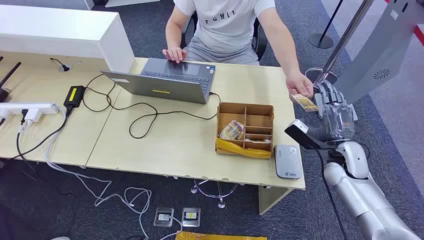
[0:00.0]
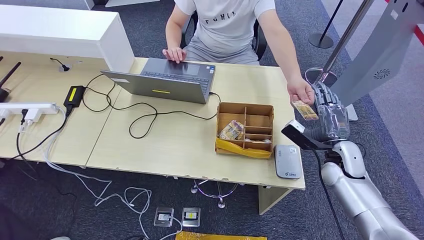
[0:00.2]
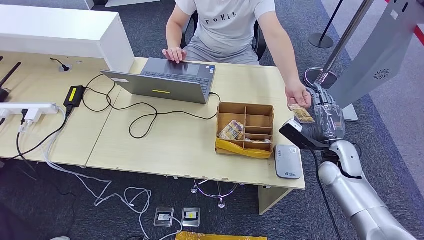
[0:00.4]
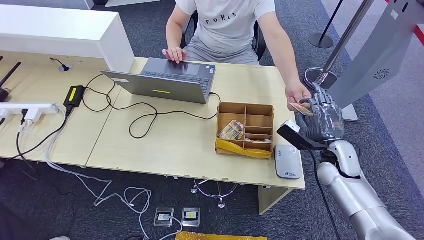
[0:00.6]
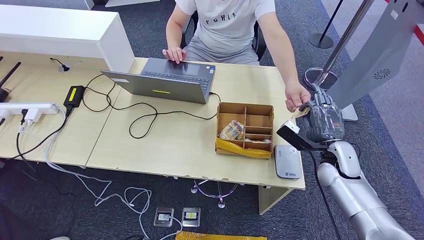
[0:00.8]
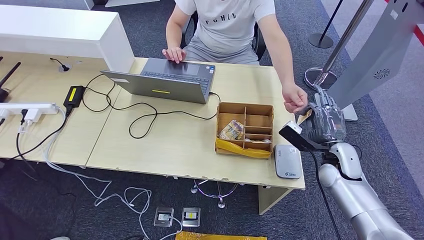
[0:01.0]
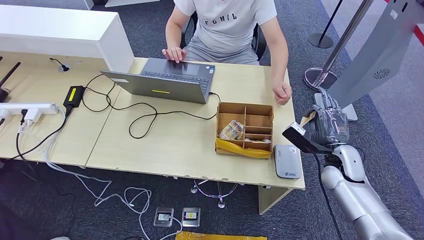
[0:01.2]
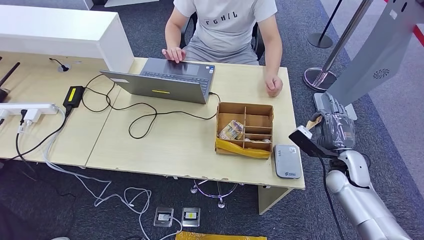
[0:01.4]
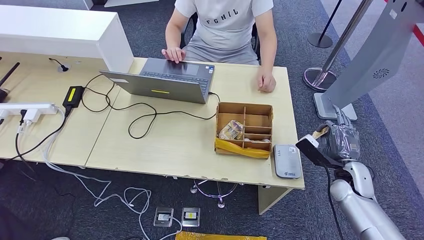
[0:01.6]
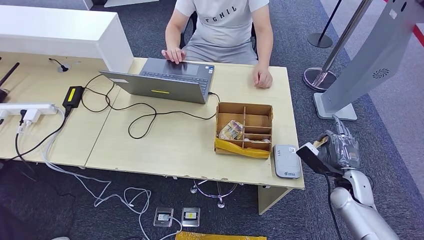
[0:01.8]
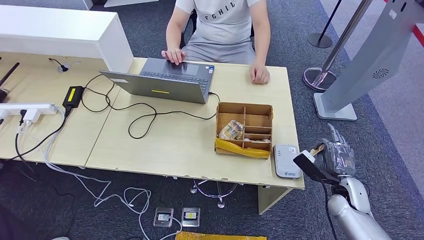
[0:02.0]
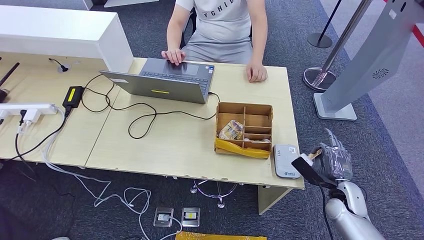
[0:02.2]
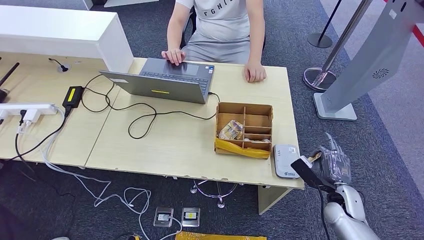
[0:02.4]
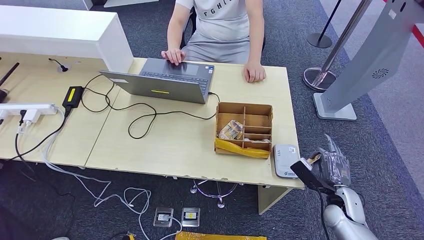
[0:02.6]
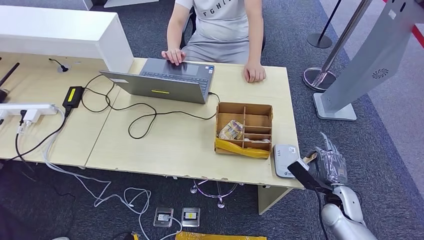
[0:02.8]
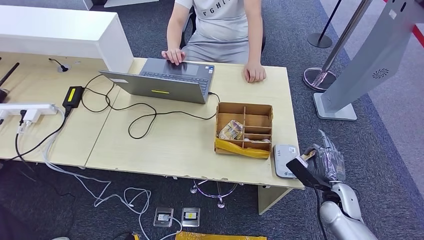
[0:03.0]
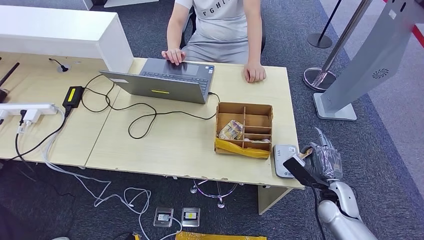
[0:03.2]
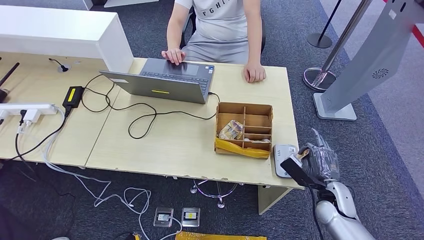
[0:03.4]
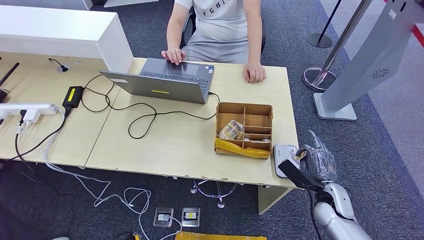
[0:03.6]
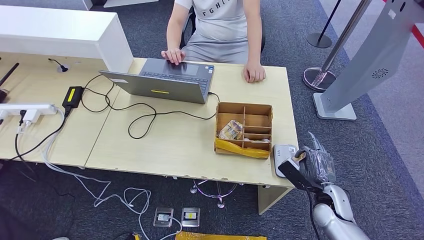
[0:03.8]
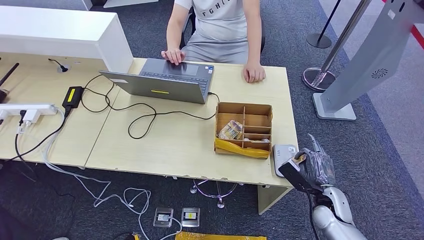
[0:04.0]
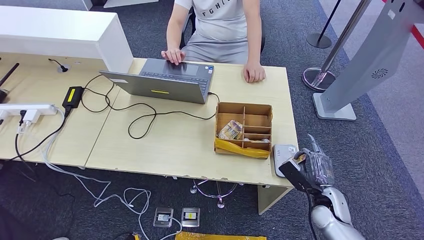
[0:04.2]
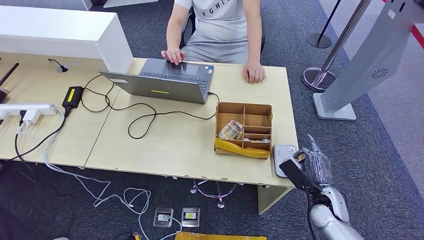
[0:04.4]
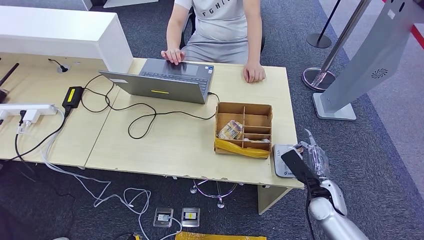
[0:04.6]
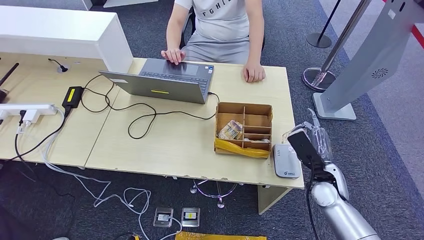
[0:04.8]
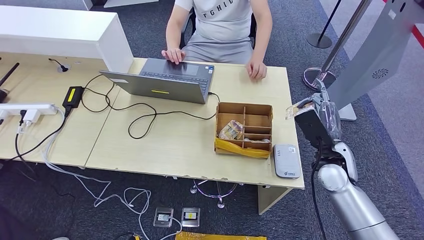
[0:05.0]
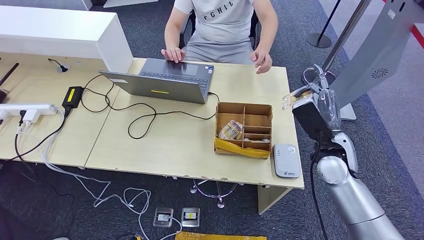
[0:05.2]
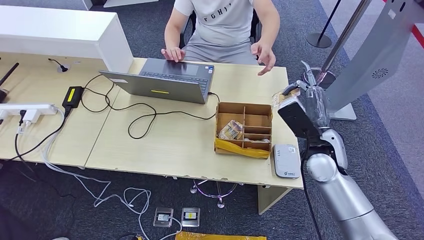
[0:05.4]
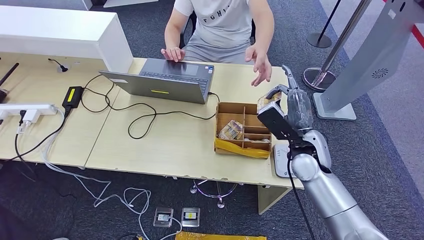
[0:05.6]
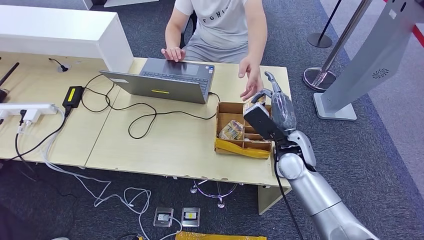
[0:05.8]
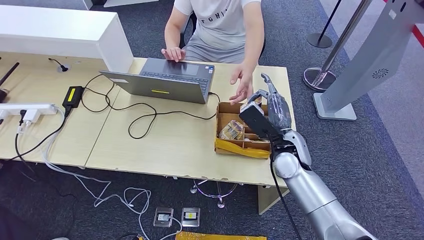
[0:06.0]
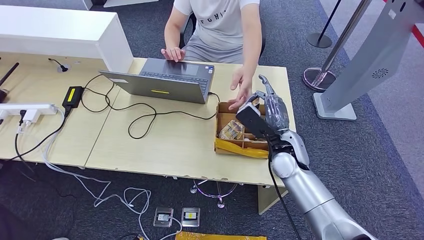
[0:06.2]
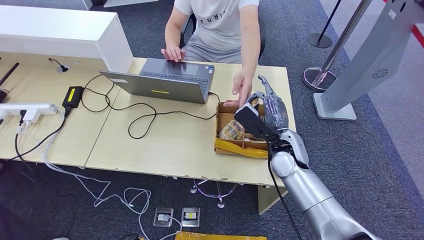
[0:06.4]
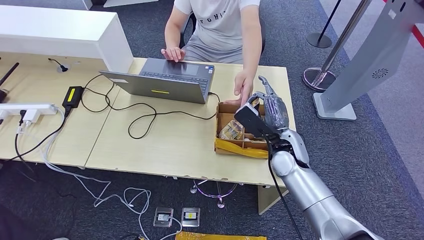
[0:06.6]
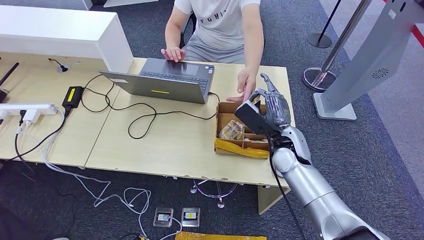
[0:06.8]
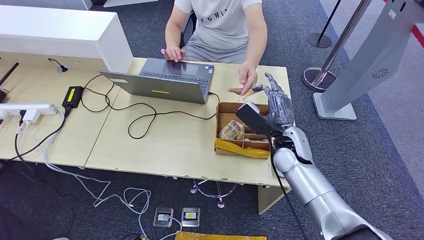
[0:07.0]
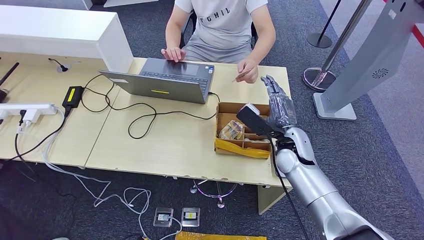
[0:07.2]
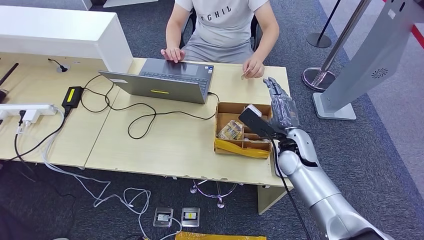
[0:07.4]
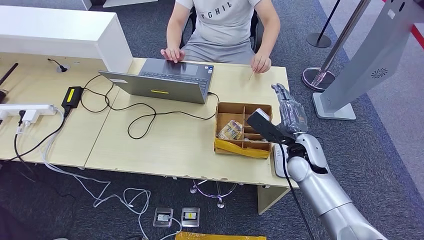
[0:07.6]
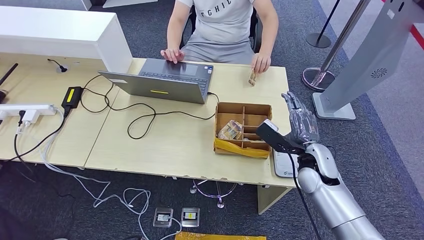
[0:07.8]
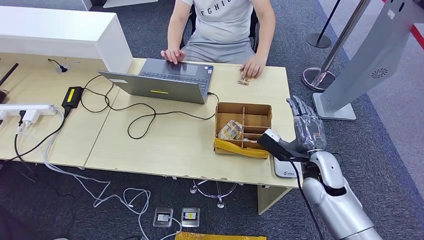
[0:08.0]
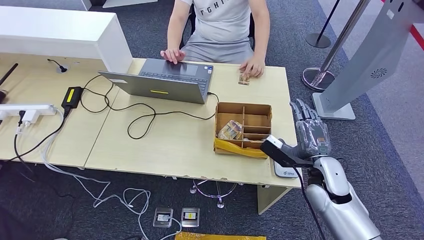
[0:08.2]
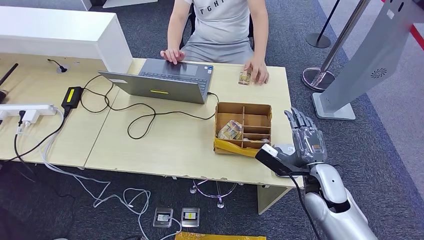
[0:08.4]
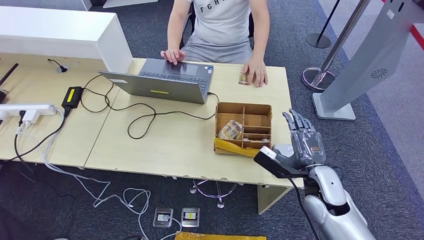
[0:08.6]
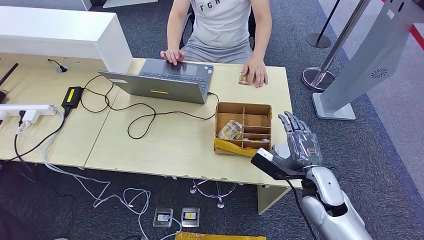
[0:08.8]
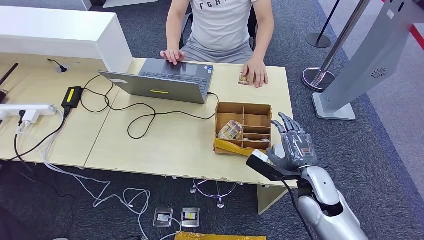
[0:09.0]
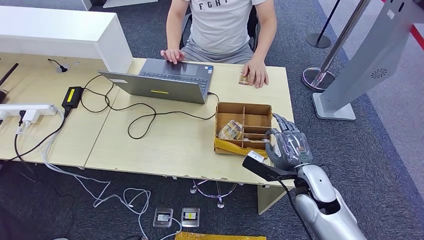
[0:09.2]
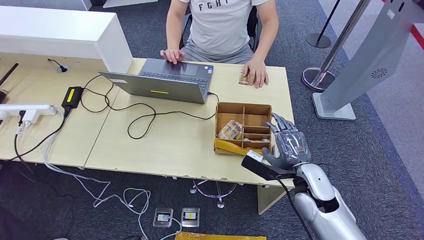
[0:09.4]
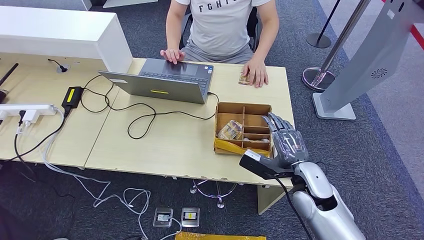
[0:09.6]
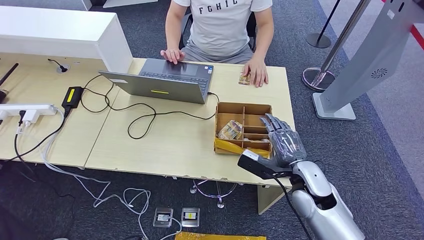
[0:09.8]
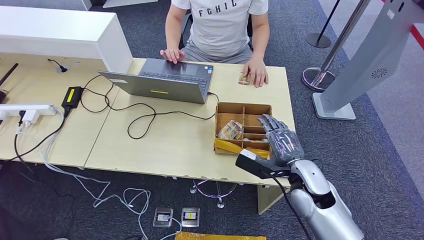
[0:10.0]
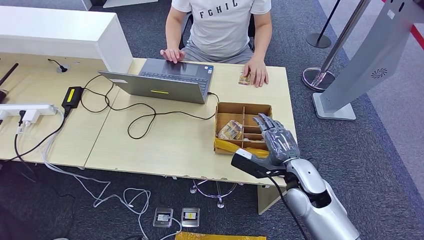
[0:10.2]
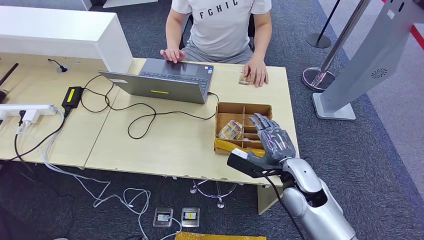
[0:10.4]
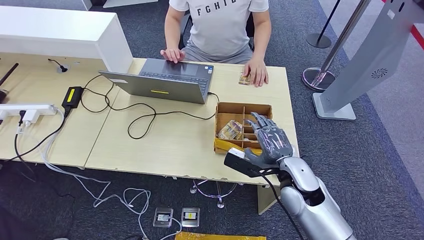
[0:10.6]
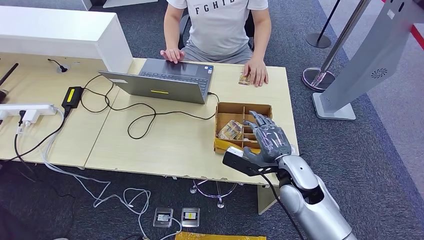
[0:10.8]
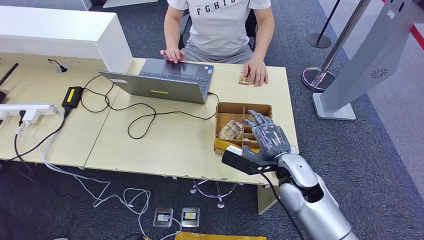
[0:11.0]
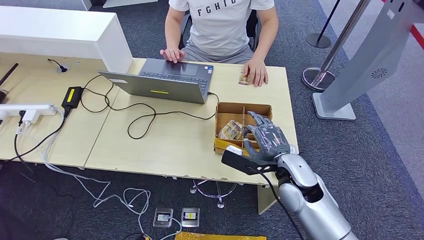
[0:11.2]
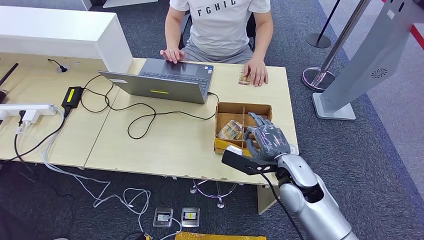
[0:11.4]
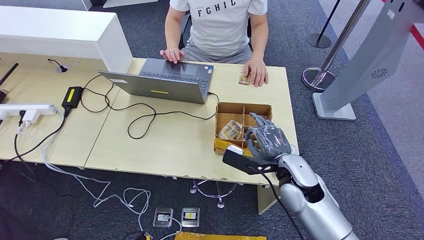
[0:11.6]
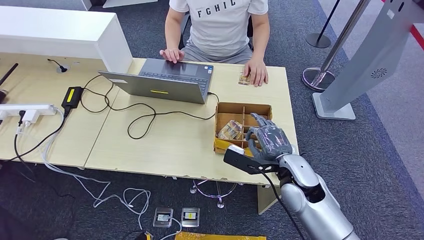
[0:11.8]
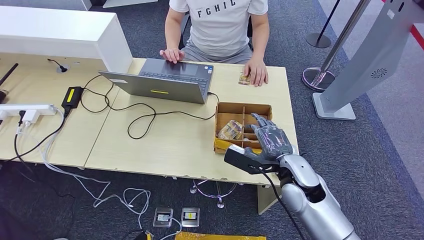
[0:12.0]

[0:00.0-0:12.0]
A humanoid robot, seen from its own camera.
Step, 0.0 to 0.8 s: Take the ID card from the person's hand.
Step, 1.0 to 4.0 s: Place the ID card on the card reader.
Step, 4.2 to 6.6 s: Hand the ID card to the person.
1.6 to 3.0 s: The right hand shifts roughly 5 cm downward.
3.0 to 4.4 s: The hands stay close to where they were, moving slightly.
4.4 to 6.0 s: The right hand shifts some 20 cm to the left, upward and forward.
6.0 to 7.6 s: There are only small adjustments of the hands.
7.6 to 9.0 s: The right hand heads backward, covering roughly 10 cm.
9.0 to 10.4 s: The right hand shifts by roughly 5 cm.
10.4 to 12.0 s: The hands stay close to where they were, moving slightly.

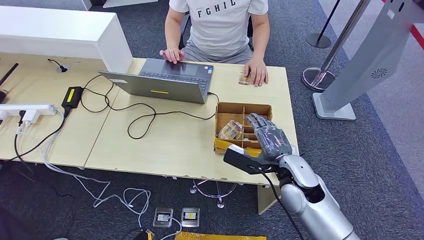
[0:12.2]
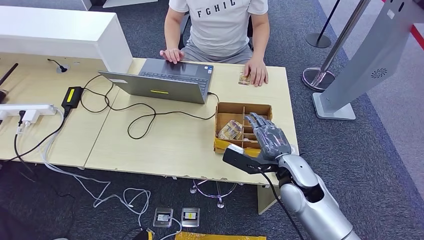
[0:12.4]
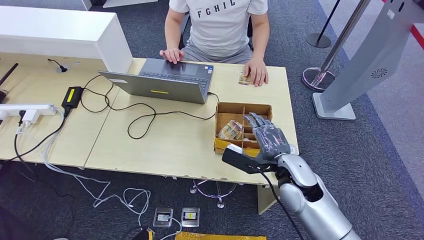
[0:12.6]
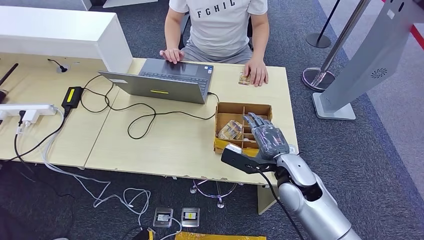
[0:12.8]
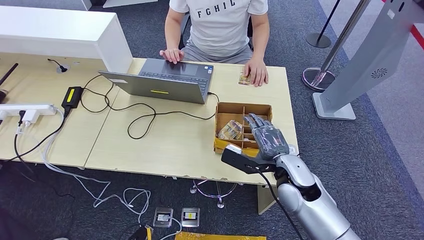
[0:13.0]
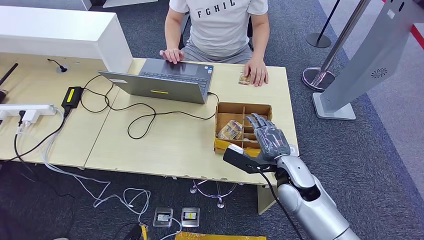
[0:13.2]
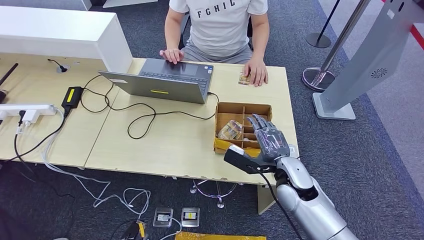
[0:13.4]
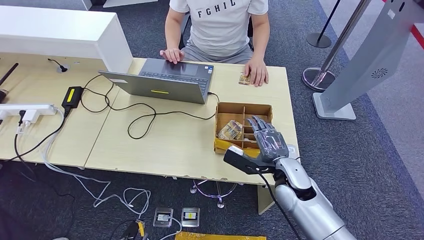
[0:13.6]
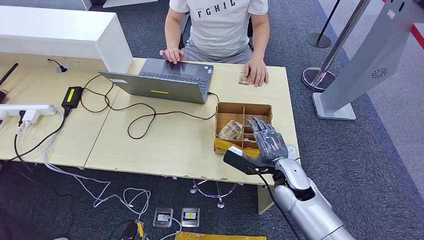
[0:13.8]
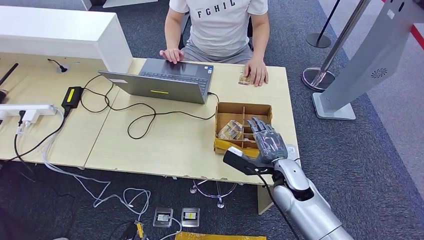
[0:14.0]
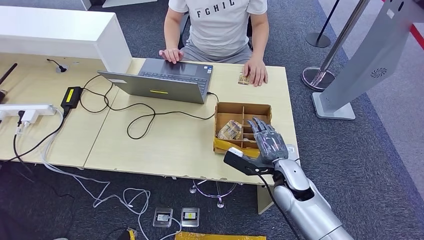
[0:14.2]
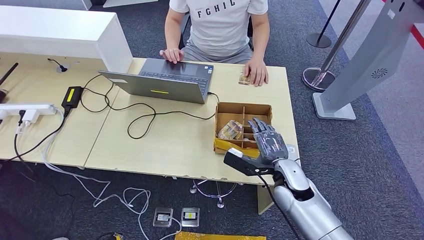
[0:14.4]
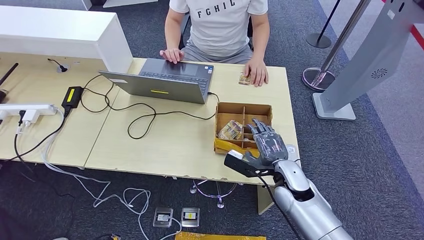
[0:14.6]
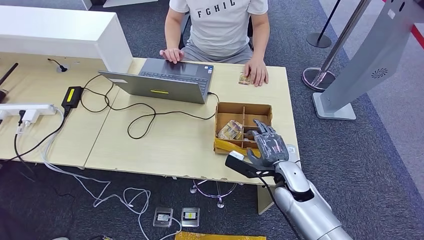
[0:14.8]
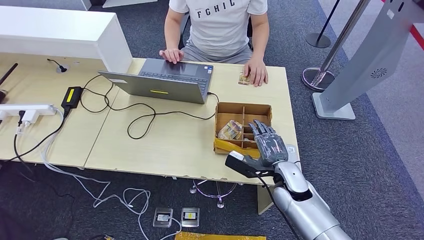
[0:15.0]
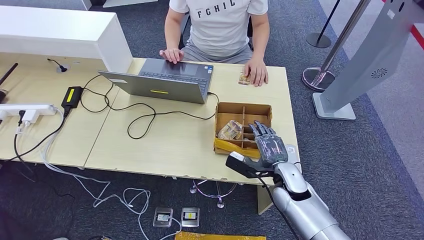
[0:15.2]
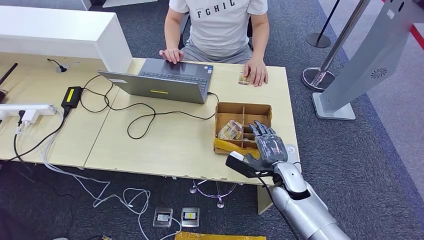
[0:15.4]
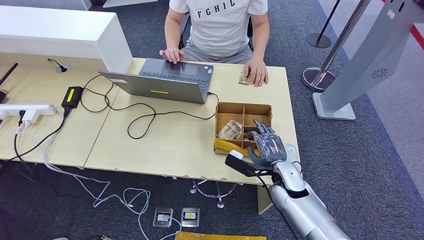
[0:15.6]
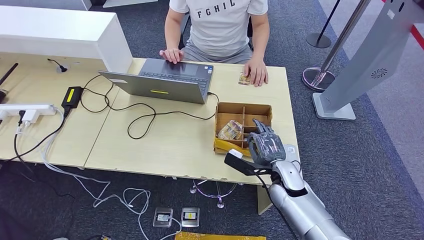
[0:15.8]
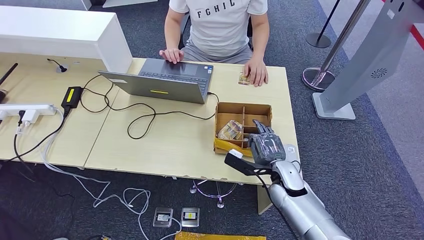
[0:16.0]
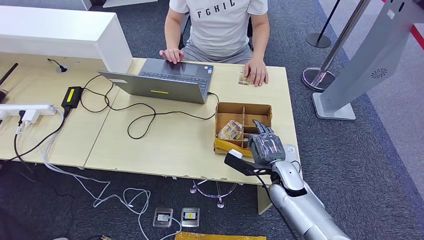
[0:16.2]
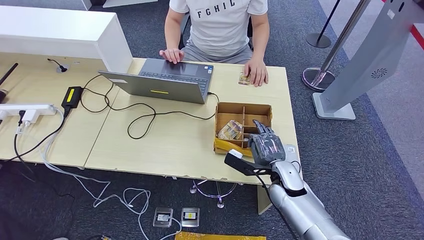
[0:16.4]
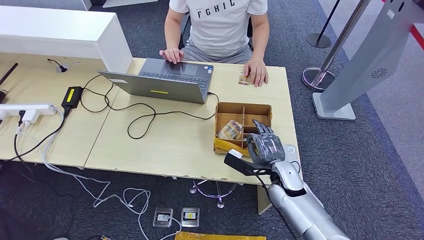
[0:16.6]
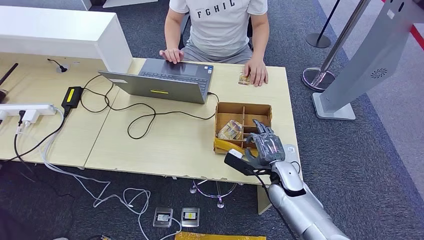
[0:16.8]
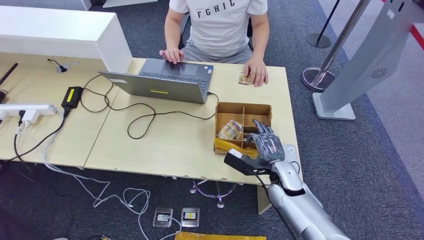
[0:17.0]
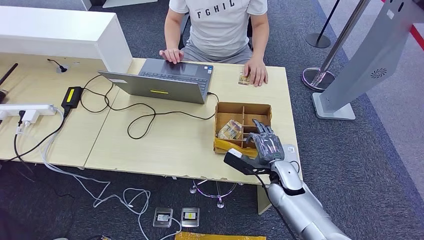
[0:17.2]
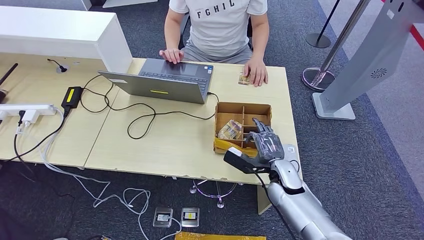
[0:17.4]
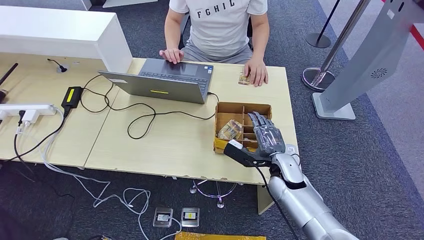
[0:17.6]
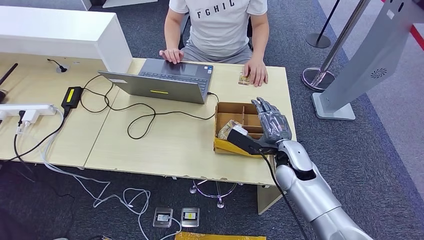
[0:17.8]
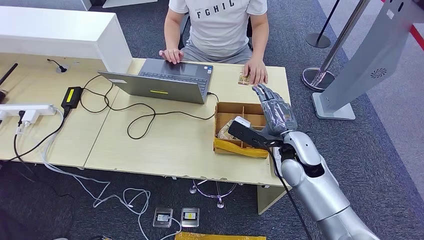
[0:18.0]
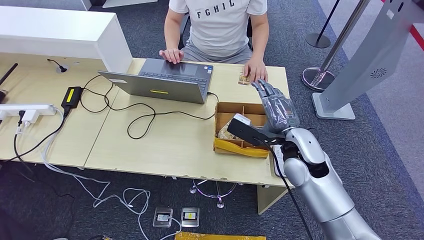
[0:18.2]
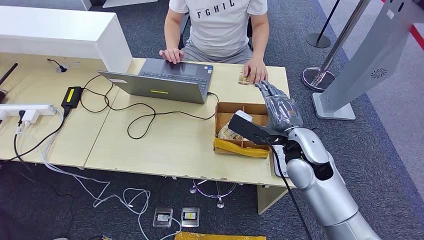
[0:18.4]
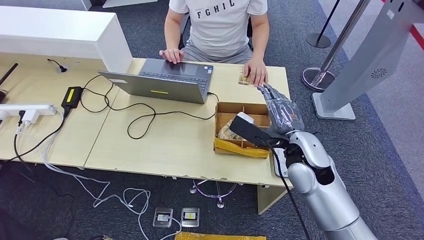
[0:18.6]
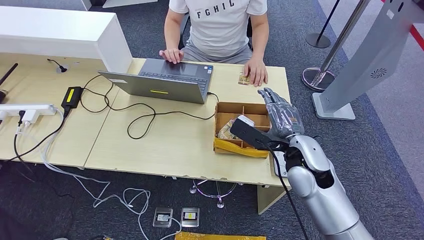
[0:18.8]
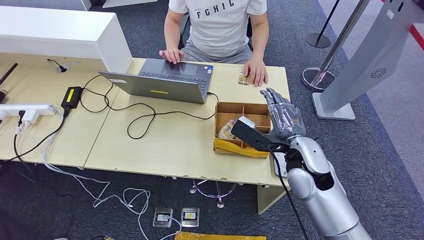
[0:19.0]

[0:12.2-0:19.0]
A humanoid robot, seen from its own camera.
12.2 to 13.6 s: The hands move only a little.
13.6 to 15.0 s: The left hand shifts about 10 cm to the left and backward.
15.0 to 17.6 s: There are only small adjustments of the hands.
17.6 to 19.0 s: The right hand travels upward by approximately 10 cm.
